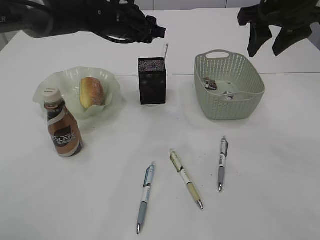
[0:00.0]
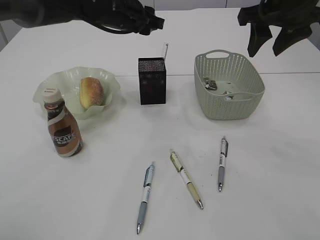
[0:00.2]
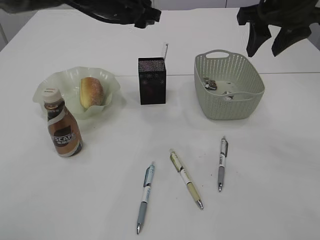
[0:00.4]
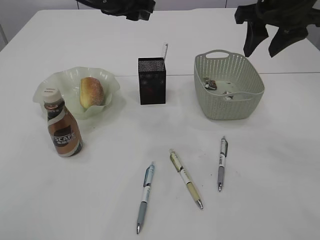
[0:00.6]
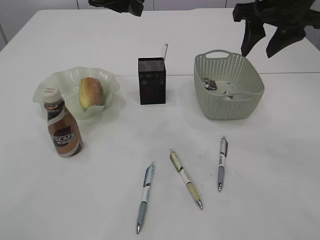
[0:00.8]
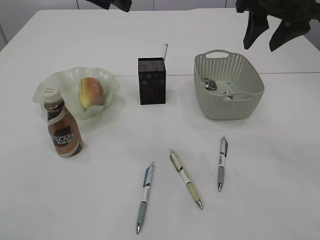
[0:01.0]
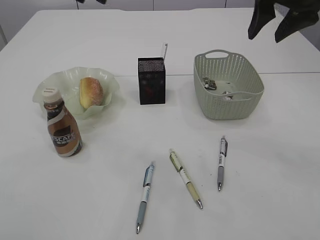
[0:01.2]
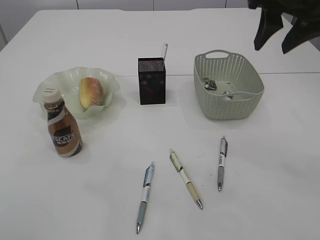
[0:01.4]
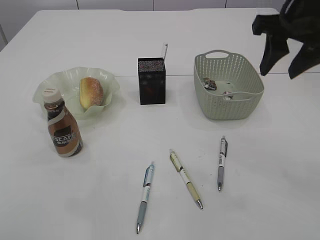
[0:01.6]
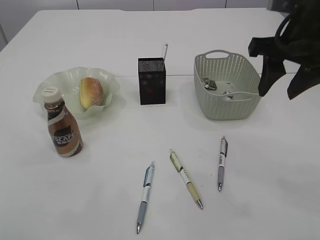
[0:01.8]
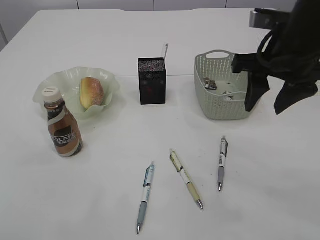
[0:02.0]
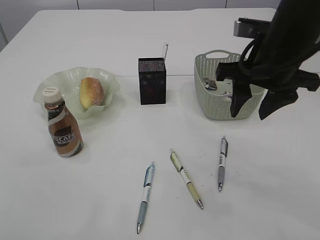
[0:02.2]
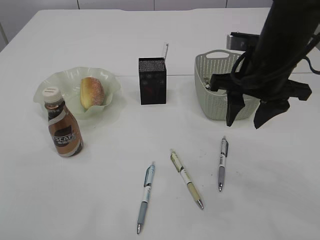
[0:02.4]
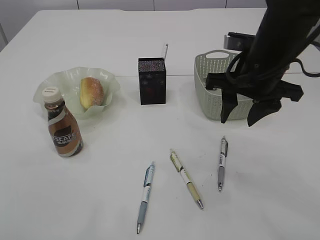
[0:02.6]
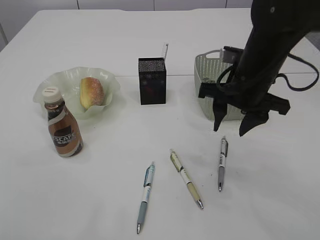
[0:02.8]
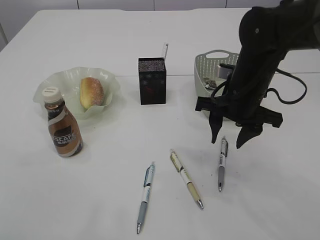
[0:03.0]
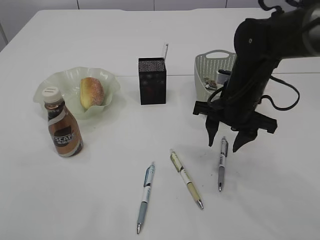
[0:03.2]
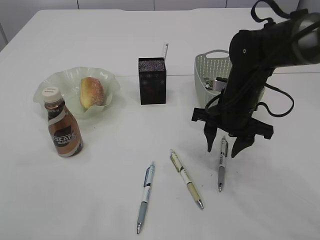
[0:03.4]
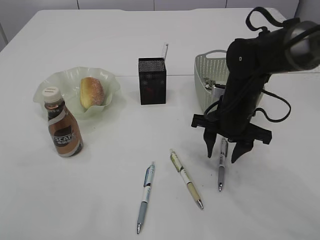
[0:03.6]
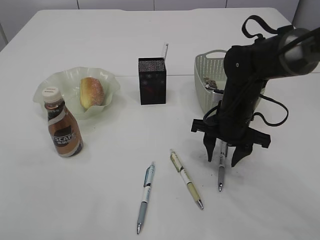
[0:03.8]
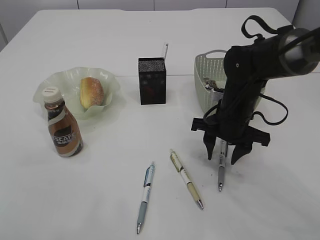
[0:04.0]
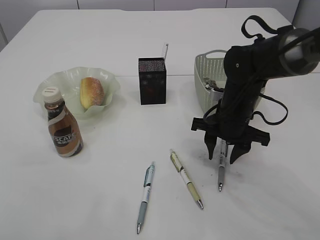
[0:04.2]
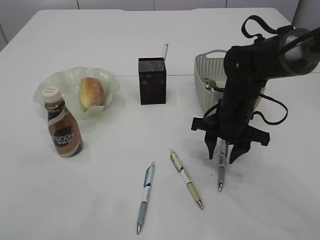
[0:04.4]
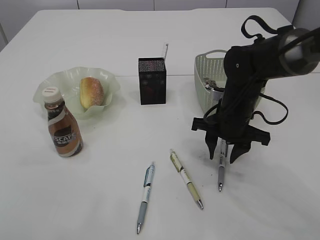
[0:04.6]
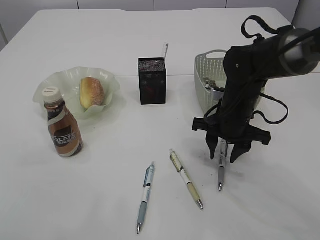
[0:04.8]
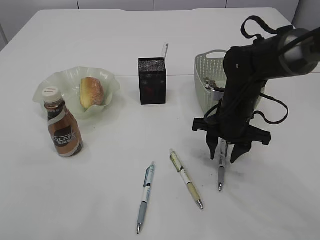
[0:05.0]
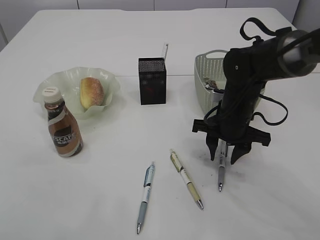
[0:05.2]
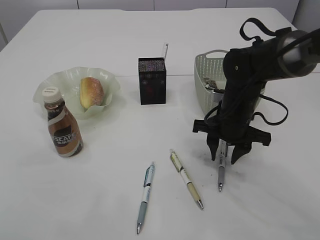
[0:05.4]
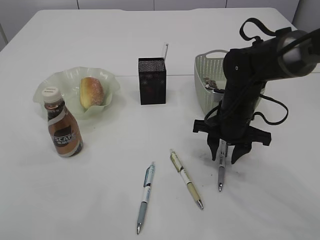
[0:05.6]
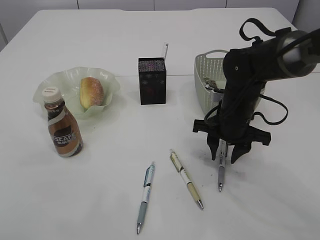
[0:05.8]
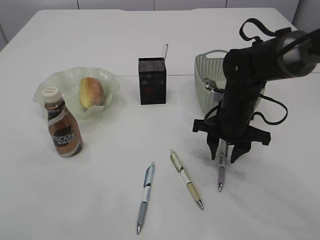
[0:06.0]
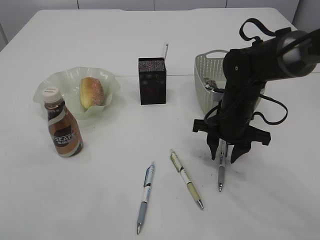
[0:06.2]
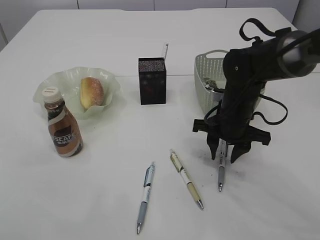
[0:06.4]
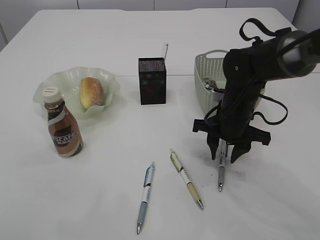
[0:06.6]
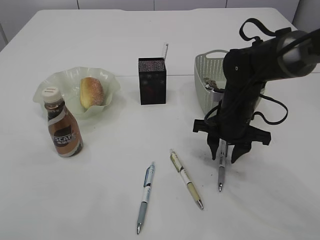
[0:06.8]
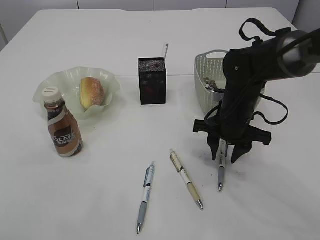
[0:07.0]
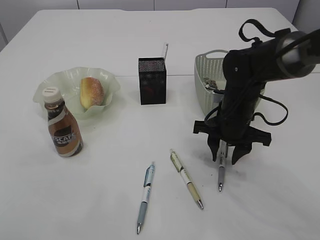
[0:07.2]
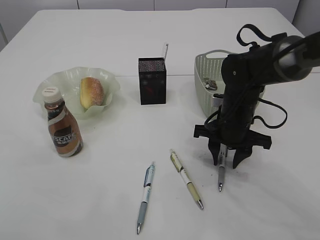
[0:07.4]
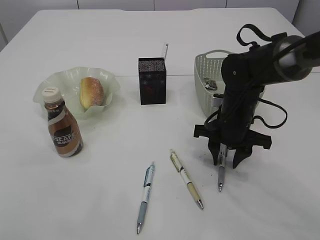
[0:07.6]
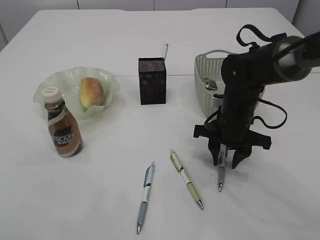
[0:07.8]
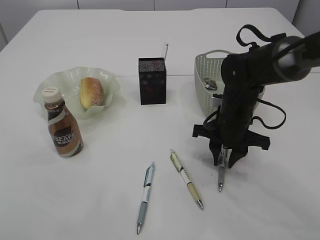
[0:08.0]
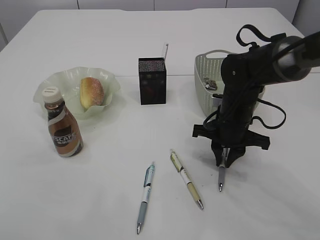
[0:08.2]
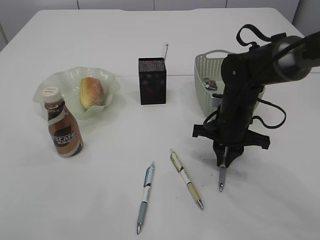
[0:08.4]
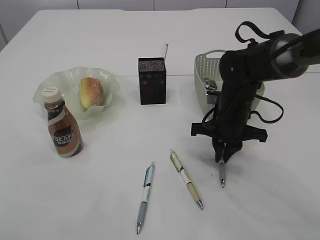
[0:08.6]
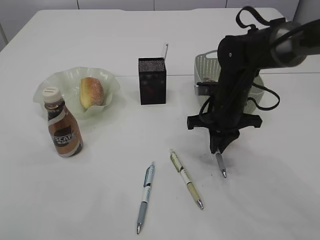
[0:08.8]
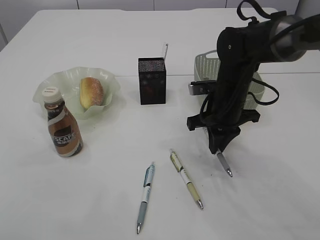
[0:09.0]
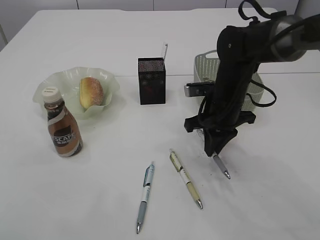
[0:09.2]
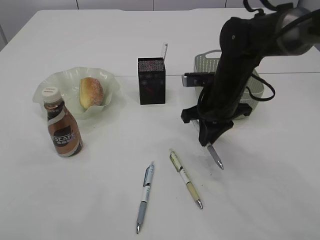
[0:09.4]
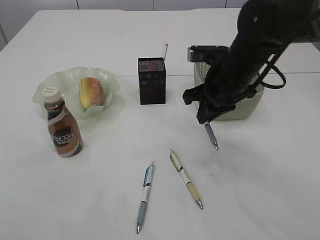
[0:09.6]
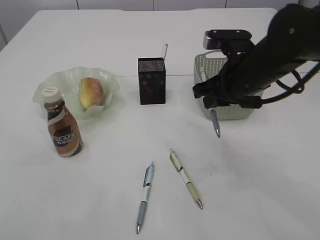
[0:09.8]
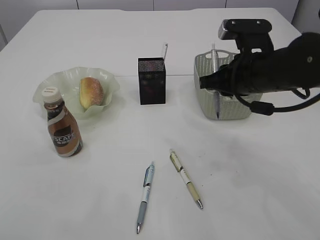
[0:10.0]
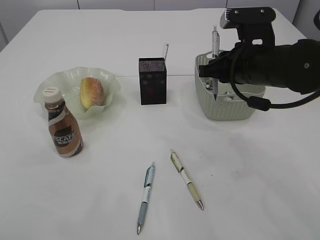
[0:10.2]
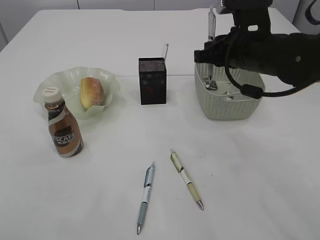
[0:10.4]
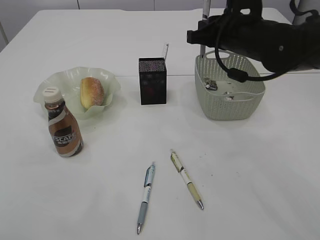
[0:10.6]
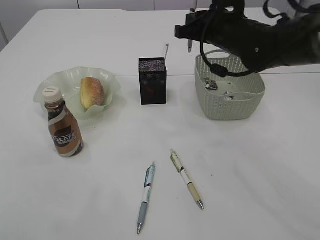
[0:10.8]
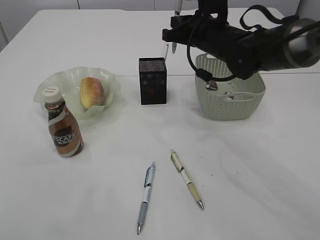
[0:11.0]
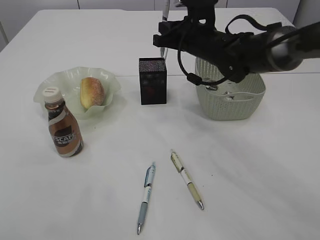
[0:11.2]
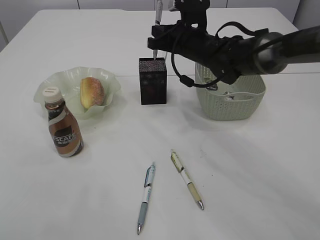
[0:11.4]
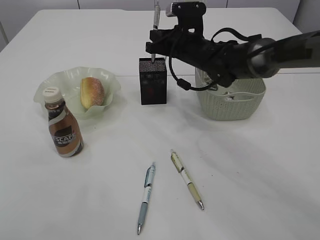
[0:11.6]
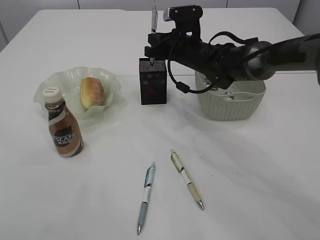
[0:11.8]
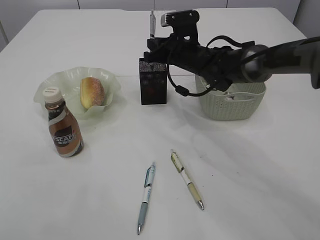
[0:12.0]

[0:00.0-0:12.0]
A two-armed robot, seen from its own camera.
Step, 0:00.2 to 0:09.0: Pick up the pen with right arm.
0:00.0 to 0:01.6: The left gripper is displaced upward, backward and to the left by some 30 cm, while the right gripper goes about 5 cm backward.
0:01.6 to 0:03.0: The right gripper goes about 15 cm downward and to the left. Meanwhile the left gripper moves backward and upward, approximately 10 cm.
0:03.0 to 0:04.4: The right gripper is displaced downward by some 5 cm.
0:04.4 to 0:06.0: The grippers make only small movements.
0:06.0 to 0:07.6: Both grippers stay put.
0:07.6 to 0:09.0: The right gripper closes.
0:09.0 to 0:10.4: The right gripper shifts some 10 cm upward.
0:10.4 to 0:12.0: The right gripper heads forward, to the left and downward, covering about 15 cm.

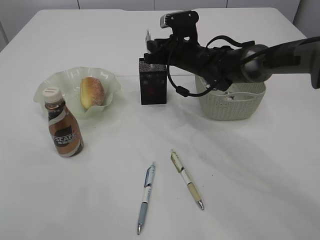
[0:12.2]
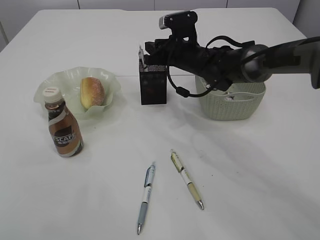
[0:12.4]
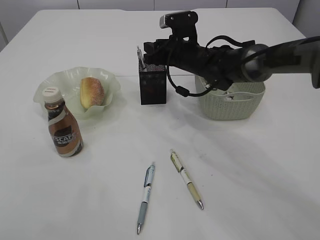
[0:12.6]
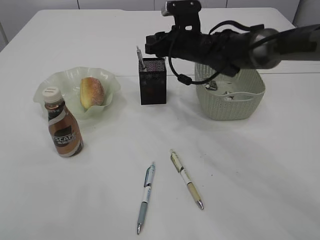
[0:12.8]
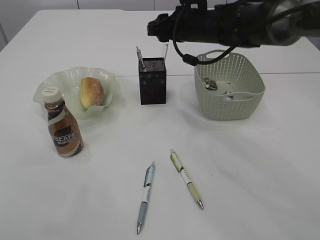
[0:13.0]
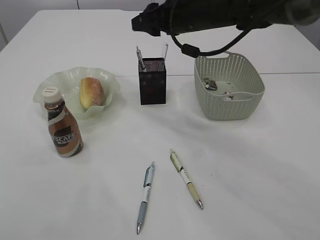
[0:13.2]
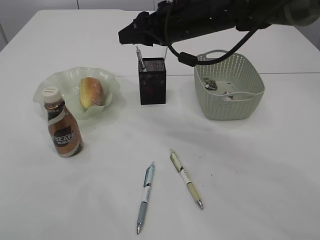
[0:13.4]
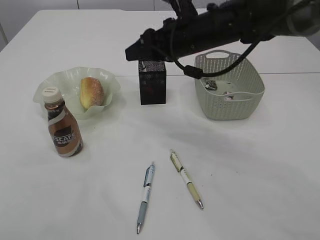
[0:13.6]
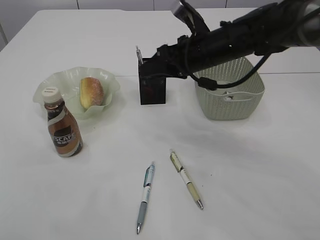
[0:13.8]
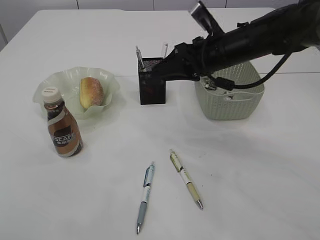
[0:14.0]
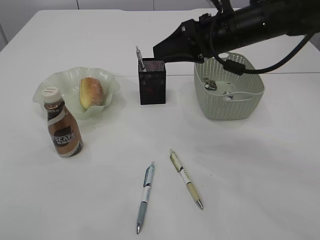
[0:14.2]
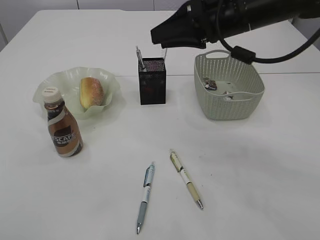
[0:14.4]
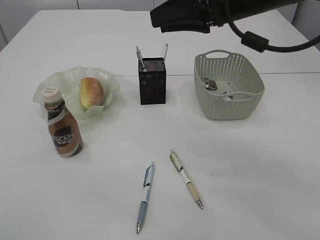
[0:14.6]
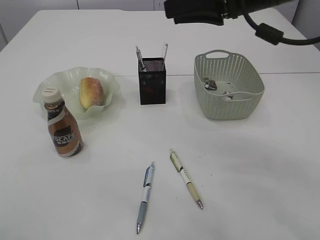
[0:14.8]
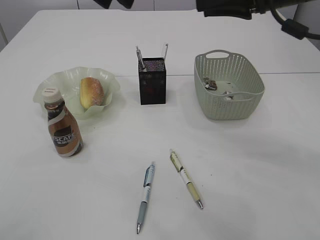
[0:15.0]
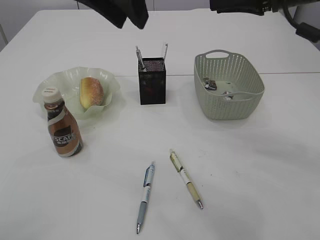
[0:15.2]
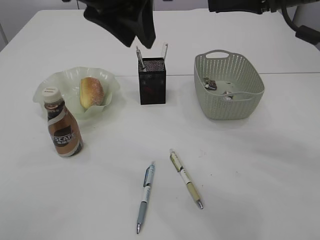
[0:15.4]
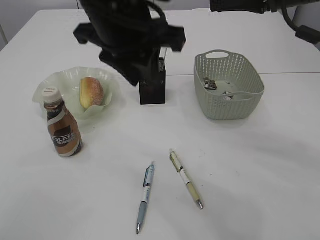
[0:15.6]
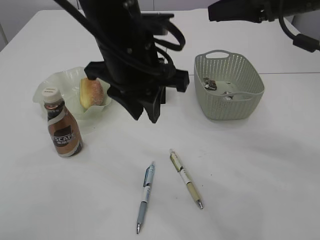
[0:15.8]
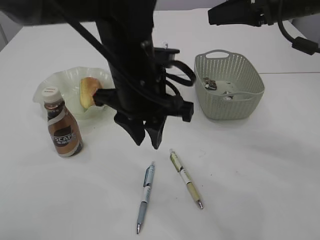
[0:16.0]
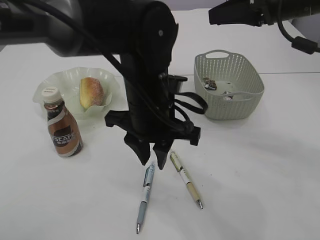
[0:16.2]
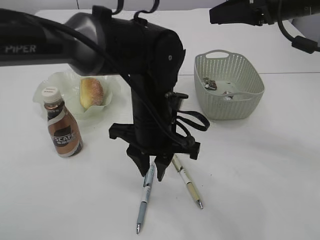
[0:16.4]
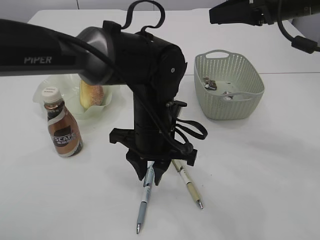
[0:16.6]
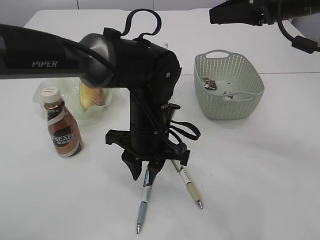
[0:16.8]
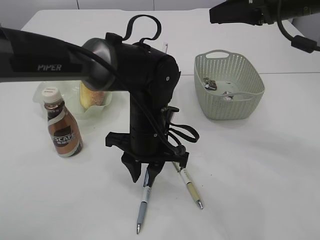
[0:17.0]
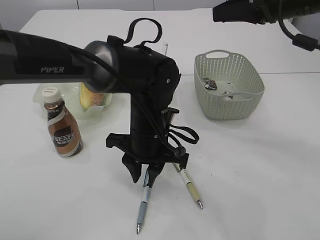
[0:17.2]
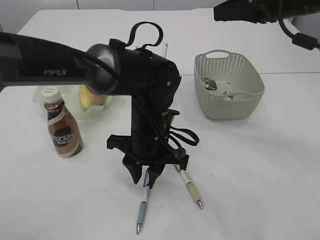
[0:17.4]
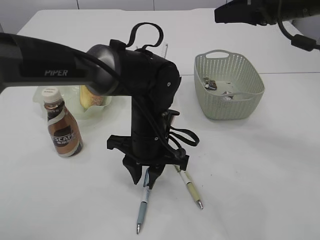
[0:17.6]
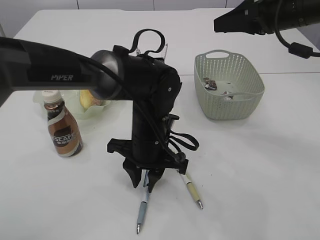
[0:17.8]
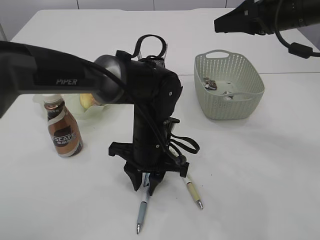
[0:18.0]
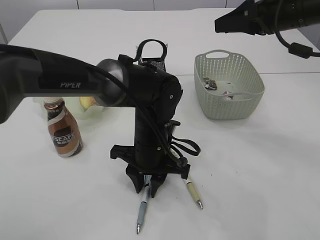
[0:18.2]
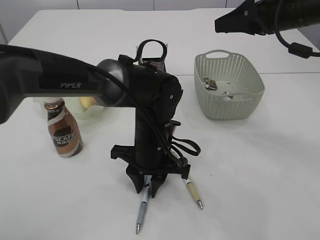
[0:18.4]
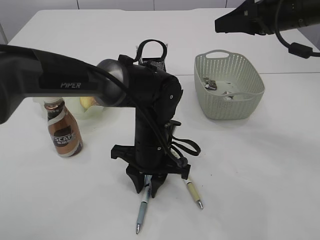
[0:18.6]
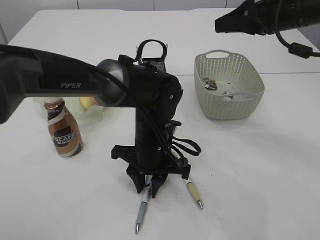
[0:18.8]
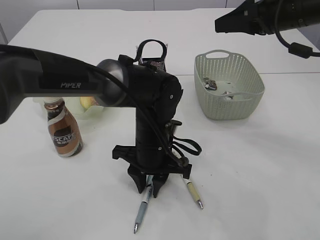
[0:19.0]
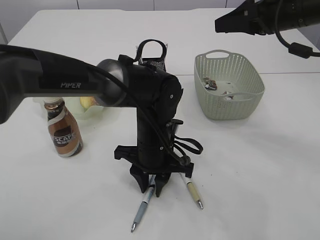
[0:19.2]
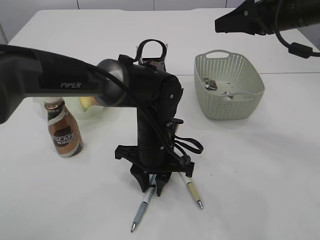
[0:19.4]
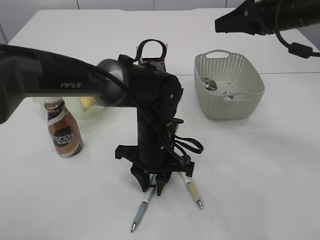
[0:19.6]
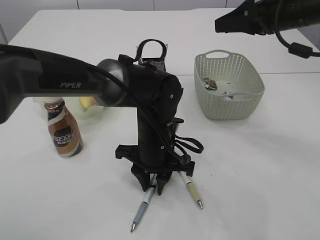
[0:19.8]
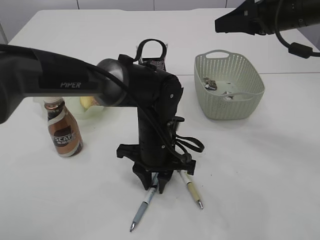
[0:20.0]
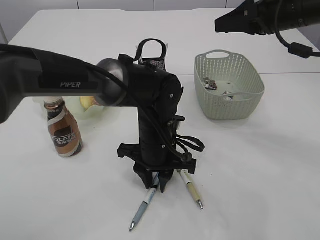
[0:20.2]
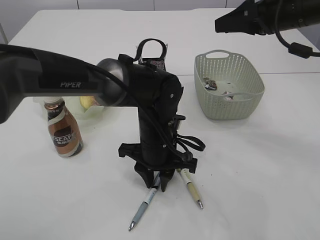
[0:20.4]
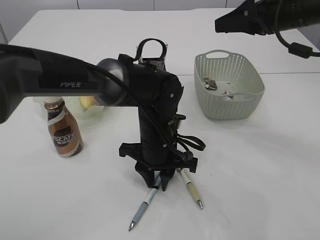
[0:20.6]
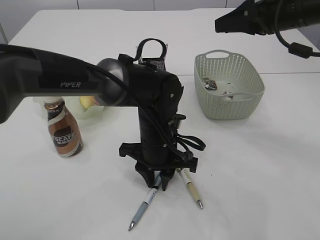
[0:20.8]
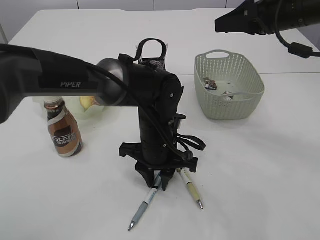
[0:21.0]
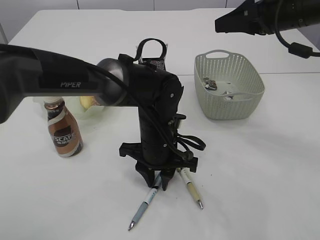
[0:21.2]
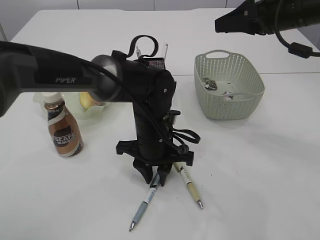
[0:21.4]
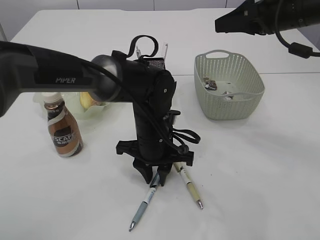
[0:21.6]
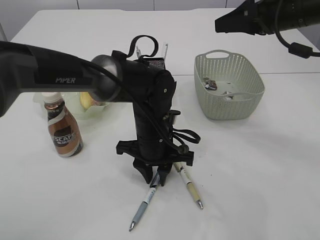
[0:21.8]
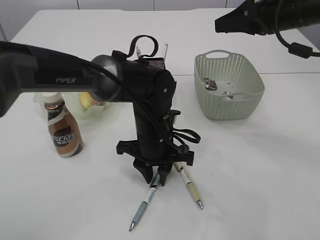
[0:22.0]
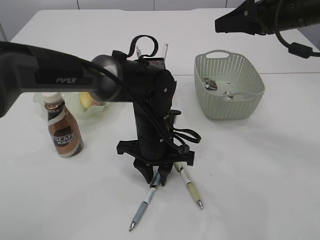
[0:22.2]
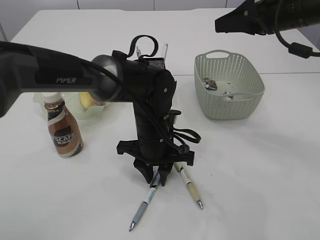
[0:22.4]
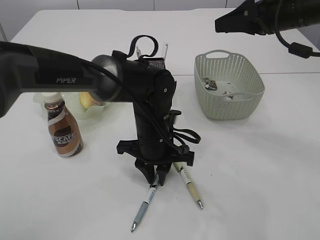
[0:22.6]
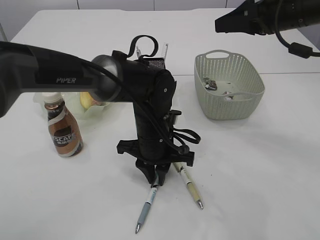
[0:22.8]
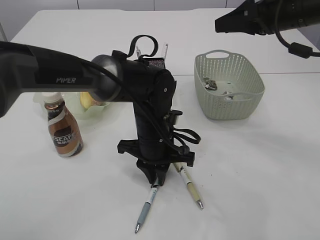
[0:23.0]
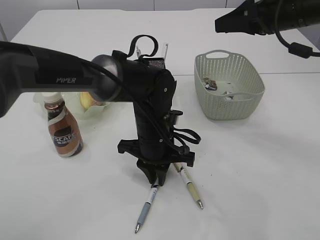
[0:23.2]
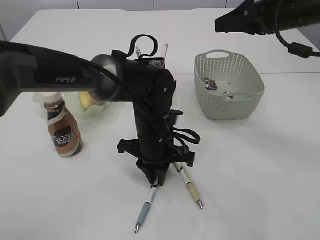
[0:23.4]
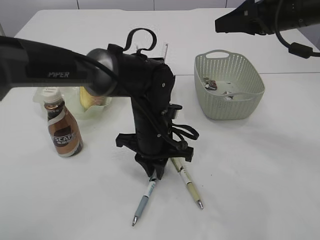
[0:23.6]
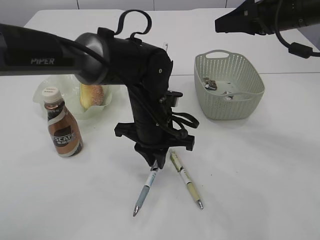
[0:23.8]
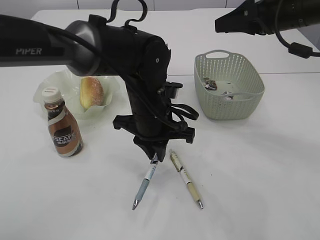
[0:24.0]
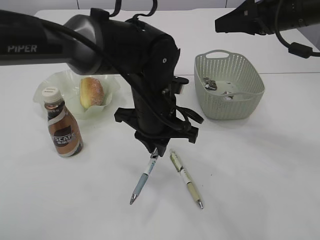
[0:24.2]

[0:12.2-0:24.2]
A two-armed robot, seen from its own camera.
0:12.2 to 0:13.8: The right gripper shifts some 10 cm backward and upward.
0:13.8 to 0:15.2: The right gripper is displaced upward and to the right by approximately 15 cm, while the left gripper heads to the right and downward, covering about 15 cm.
0:15.2 to 0:16.6: The left gripper goes some 25 cm downward.
0:16.6 to 0:18.2: The left gripper travels downward by roughly 5 cm.
0:18.2 to 0:19.8: Both grippers stay put.
0:19.8 to 0:22.6: The two grippers keep their place.
0:22.6 to 0:24.2: The left gripper heads upward, covering about 5 cm.
